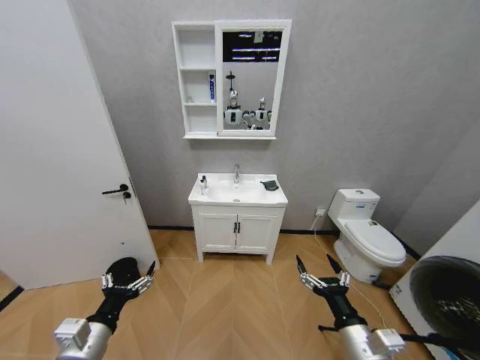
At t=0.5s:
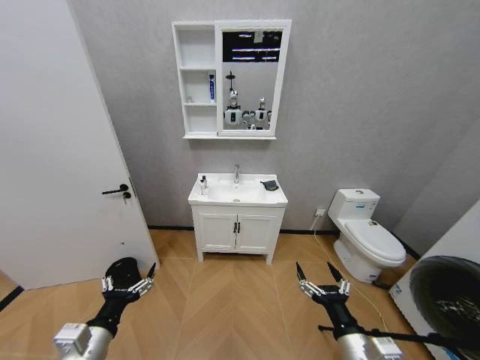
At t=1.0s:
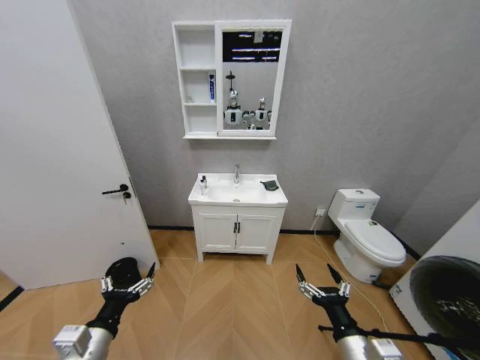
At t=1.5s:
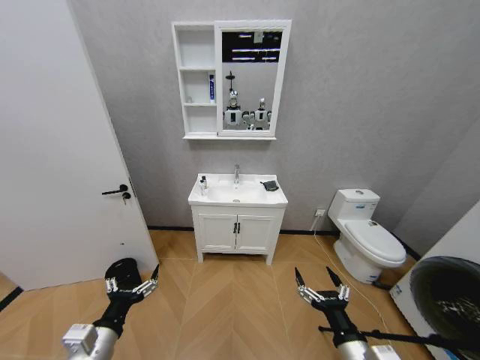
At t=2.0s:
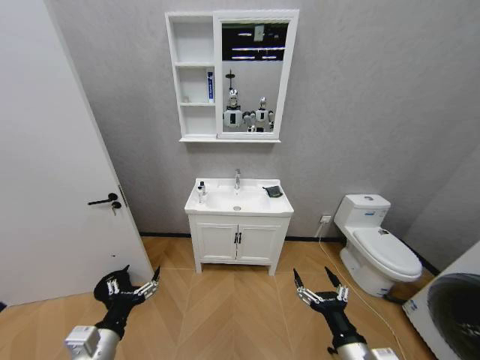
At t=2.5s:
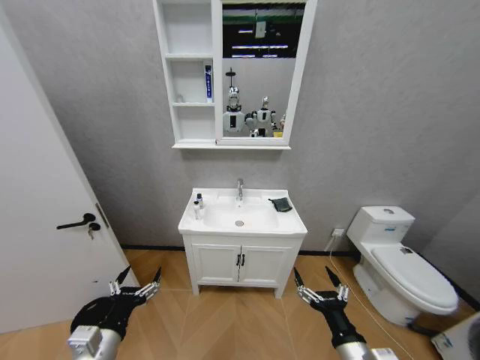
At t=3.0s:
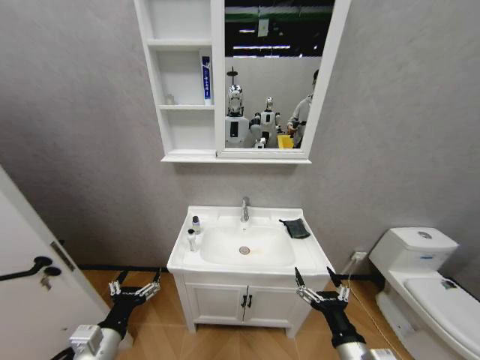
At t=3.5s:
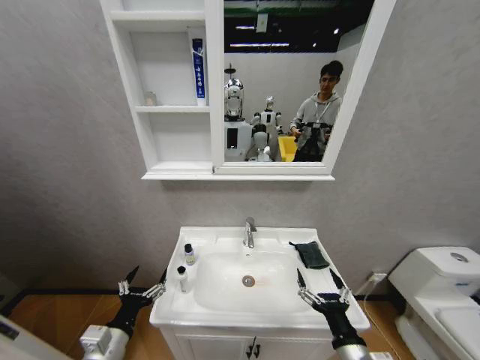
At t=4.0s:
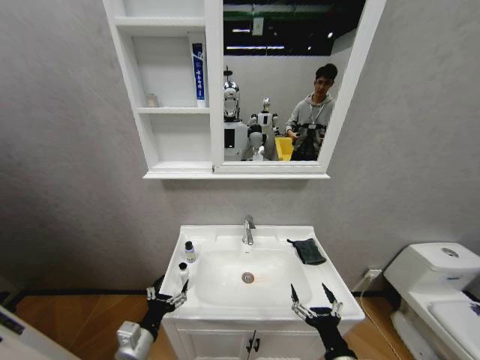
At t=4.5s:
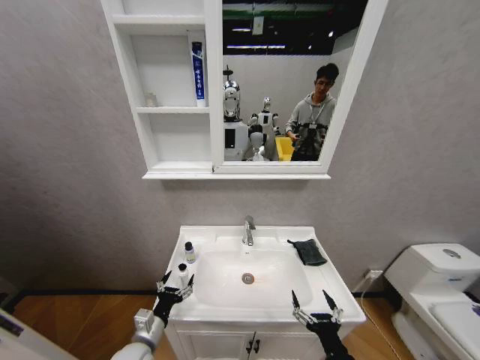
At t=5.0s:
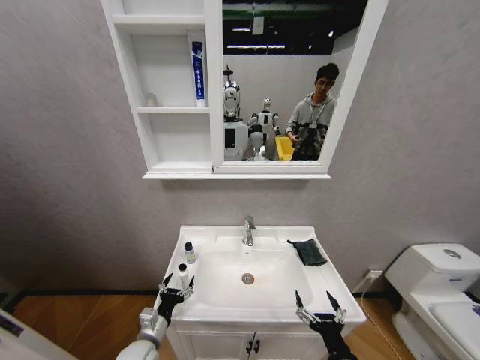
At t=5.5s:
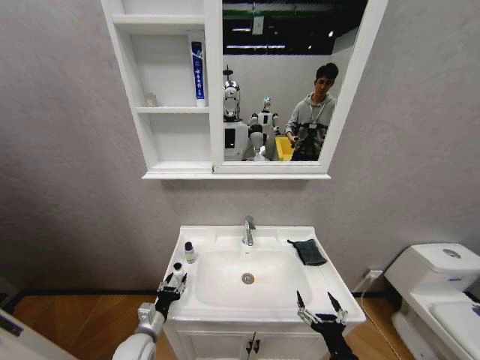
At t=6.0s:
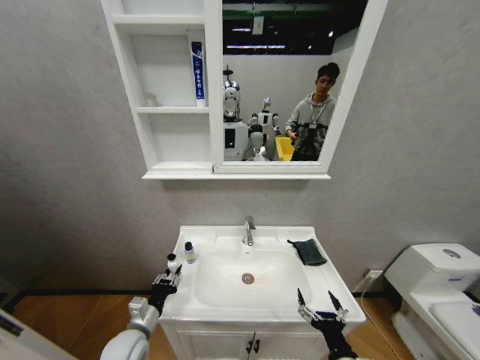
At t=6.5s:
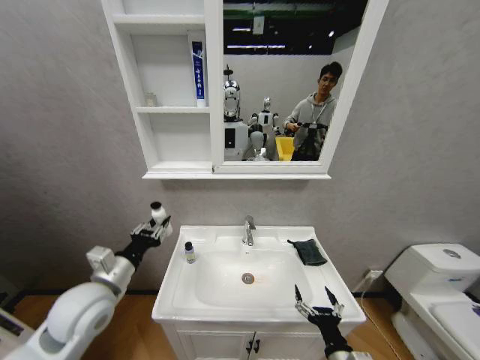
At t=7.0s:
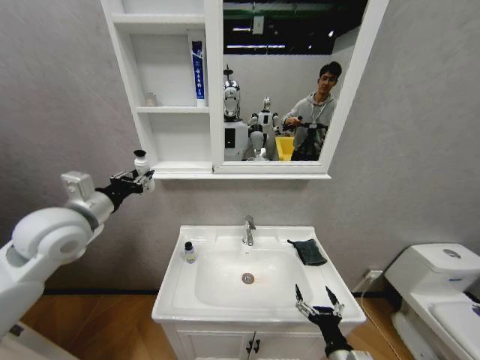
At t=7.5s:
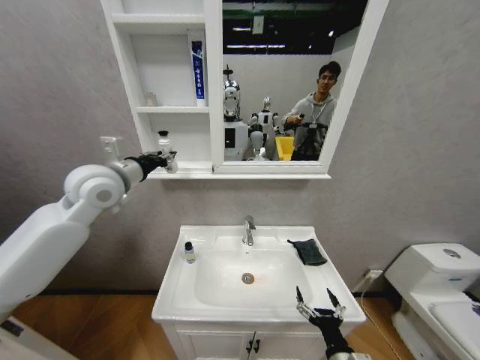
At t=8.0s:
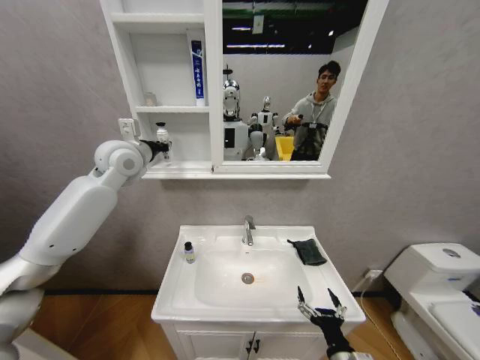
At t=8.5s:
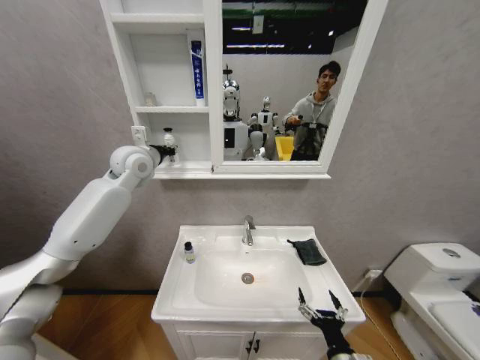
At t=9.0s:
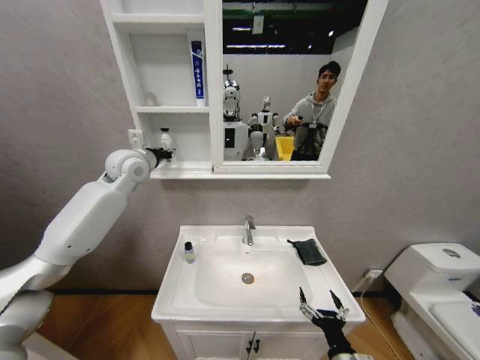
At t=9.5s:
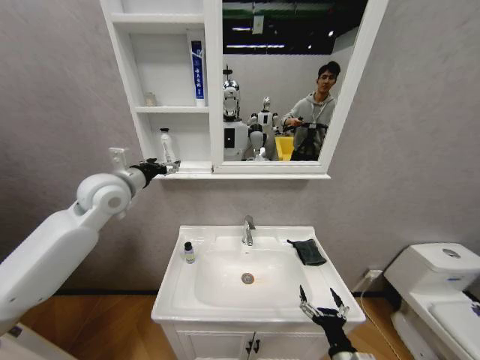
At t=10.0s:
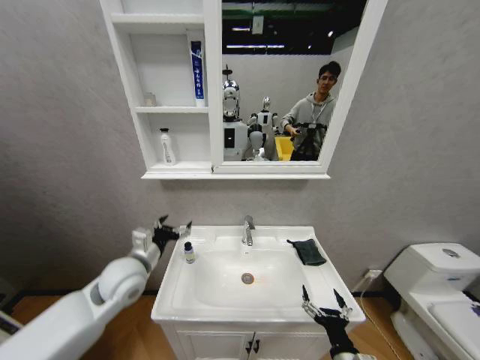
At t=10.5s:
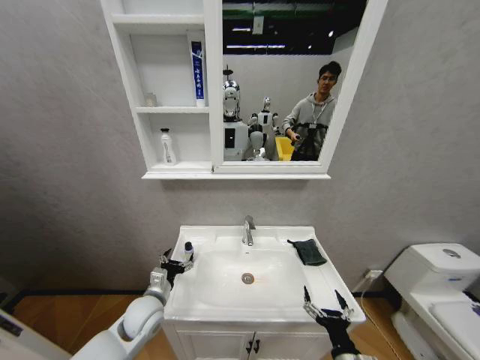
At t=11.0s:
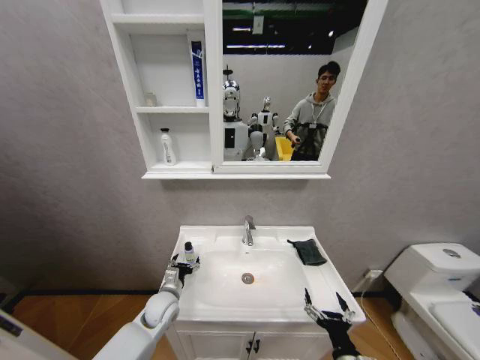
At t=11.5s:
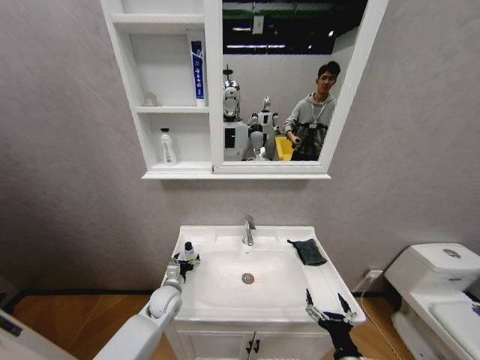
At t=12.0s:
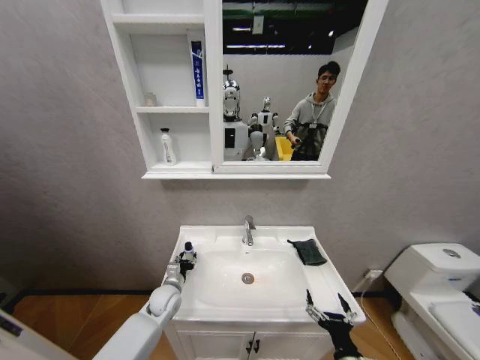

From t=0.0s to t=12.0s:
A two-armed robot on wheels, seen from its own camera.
Task of the whole recording: Move facial cleanser and shampoo from washbasin to cabinet, then wipe washbasin with towel.
From t=2.0s to t=4.0s: The left gripper is displaced downward by about 5 cm.
From t=4.0s to t=6.0s: The left gripper goes approximately 5 cm forward, and closes up.
From t=6.0s to t=8.0s: The left gripper is displaced upward and forward by roughly 50 cm.
From t=8.0s to t=10.0s: The left gripper is displaced downward and backward by approximately 25 cm, and opens up.
From t=10.0s to t=12.0s: The left gripper heads downward, covering about 20 cm, and closes its fingers.

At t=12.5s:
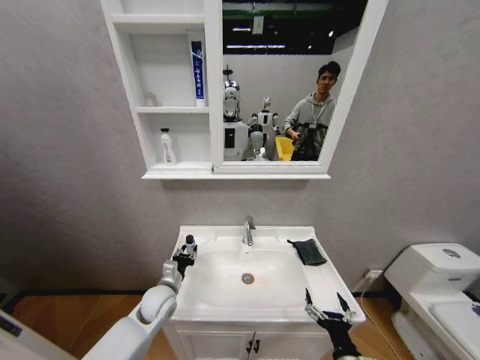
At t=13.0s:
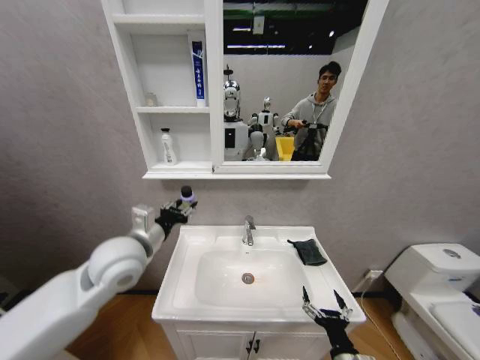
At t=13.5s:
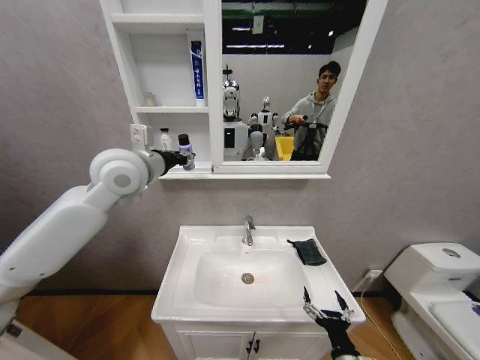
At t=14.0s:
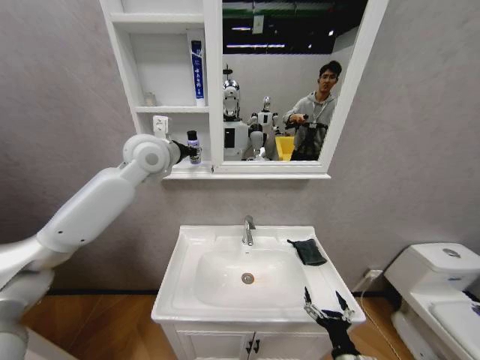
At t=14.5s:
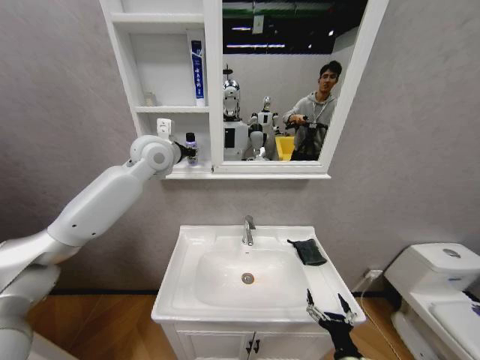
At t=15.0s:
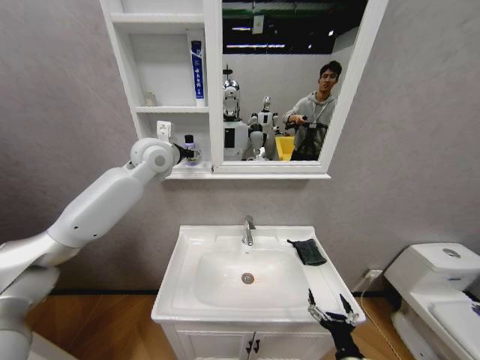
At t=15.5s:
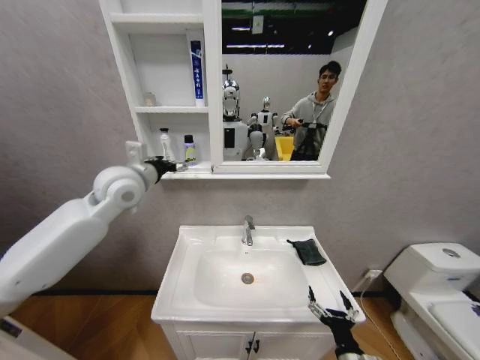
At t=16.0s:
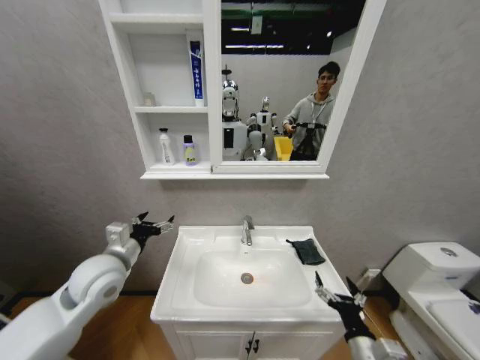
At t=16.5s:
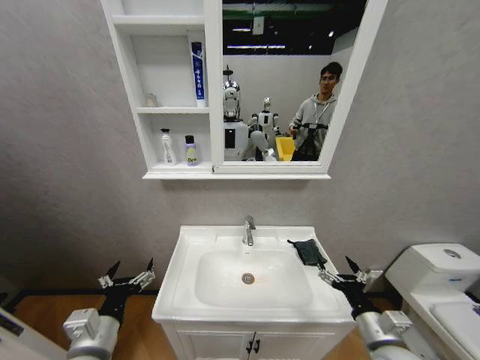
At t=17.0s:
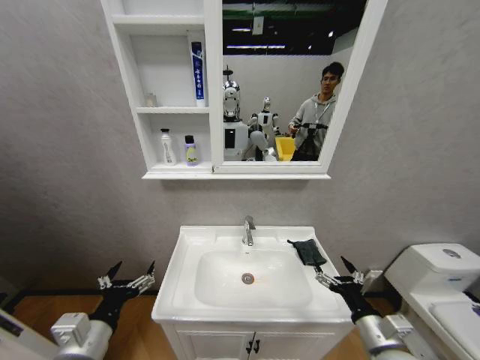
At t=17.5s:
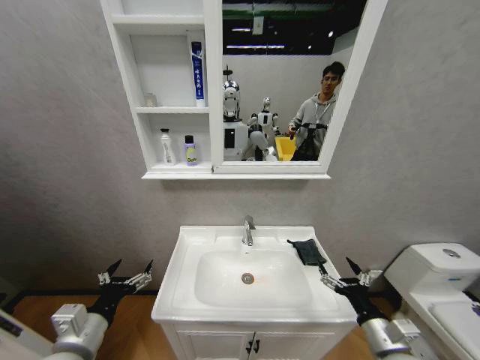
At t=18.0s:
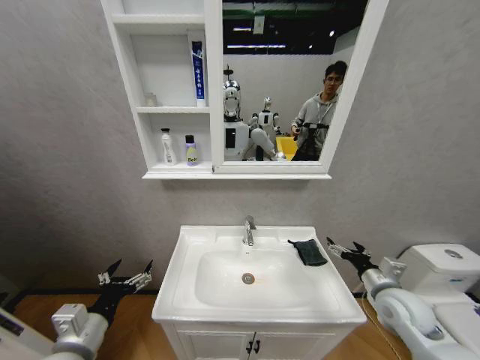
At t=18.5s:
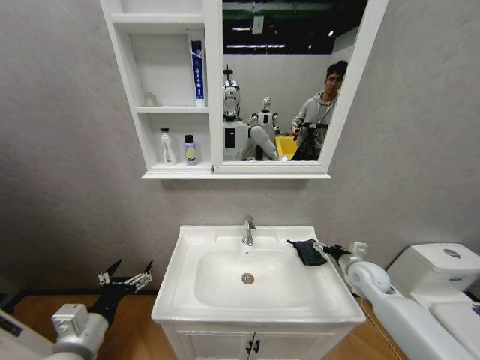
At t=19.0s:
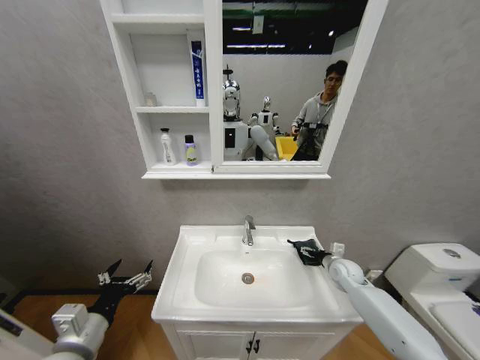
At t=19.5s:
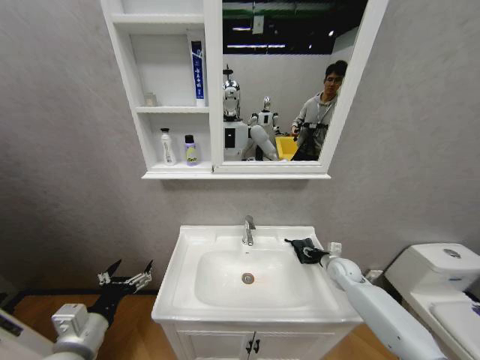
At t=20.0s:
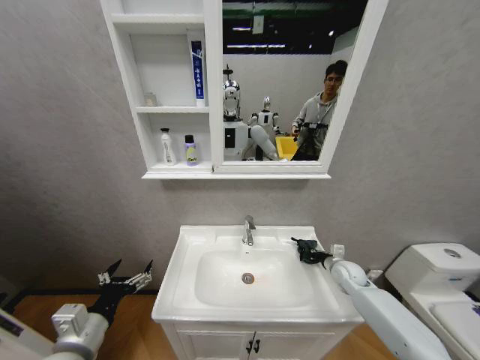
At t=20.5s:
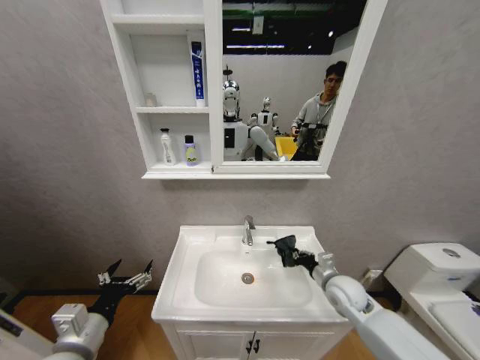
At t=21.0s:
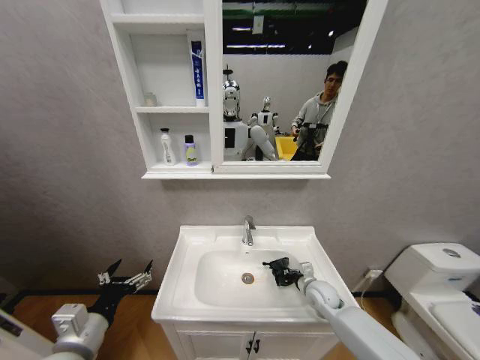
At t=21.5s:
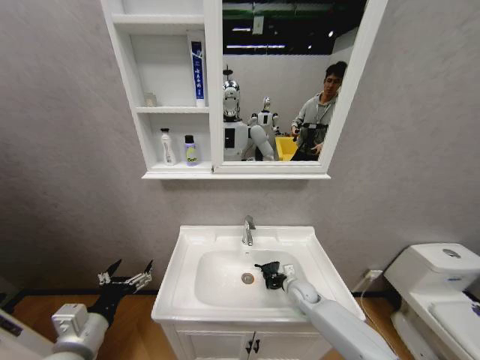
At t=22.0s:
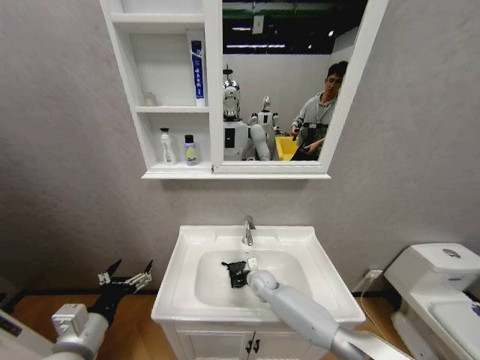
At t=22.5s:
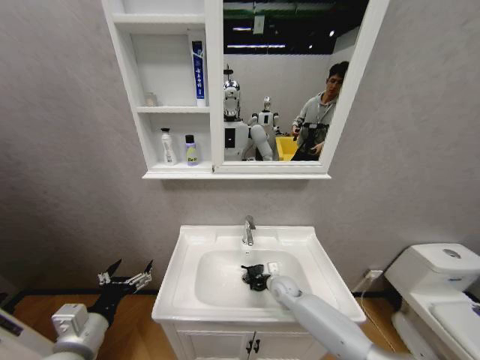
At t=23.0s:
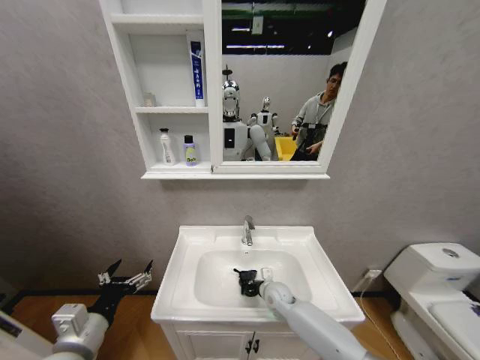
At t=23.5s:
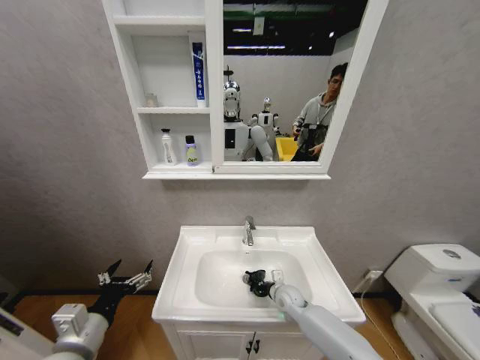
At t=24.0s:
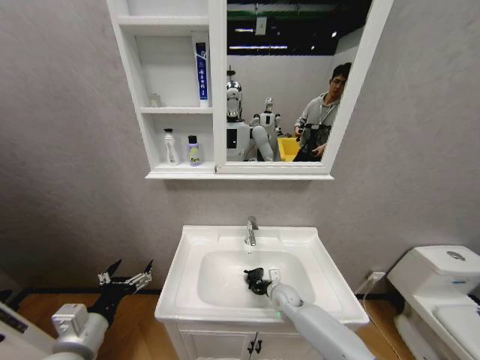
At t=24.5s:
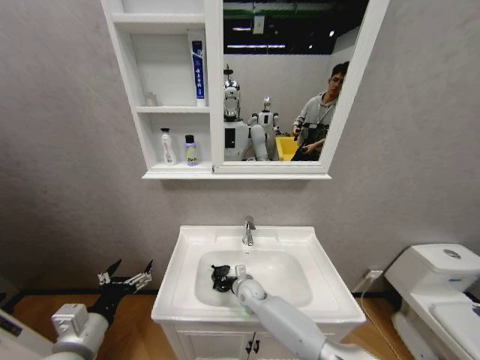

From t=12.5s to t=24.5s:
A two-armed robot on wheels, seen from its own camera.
Task of the whole recording: Move facial cleanser and shampoo from washbasin to cabinet, then wipe washbasin with towel.
From t=12.5s to t=14.5s: The left gripper heads upward and forward, covering about 40 cm.
From t=14.5s to t=16.5s: The right gripper shifts approximately 10 cm upward, forward and to the right, while the left gripper heads backward and downward, covering some 40 cm, and opens up.
From t=16.5s to t=18.5s: The right gripper heads forward, covering some 20 cm.
From t=18.5s to t=20.5s: The right gripper is displaced to the left by roughly 10 cm, and closes up.
From t=20.5s to t=22.5s: The right gripper shifts some 20 cm to the left, downward and forward.
From t=22.5s to t=24.5s: The right gripper travels to the left by approximately 10 cm.

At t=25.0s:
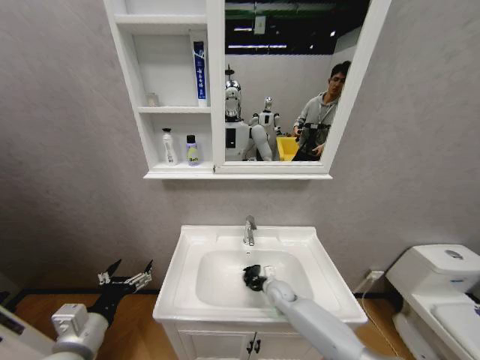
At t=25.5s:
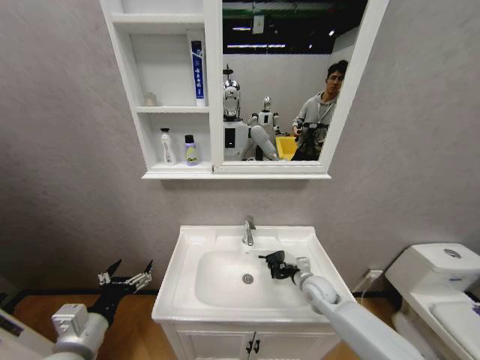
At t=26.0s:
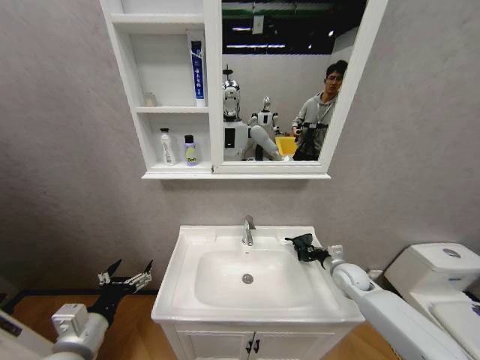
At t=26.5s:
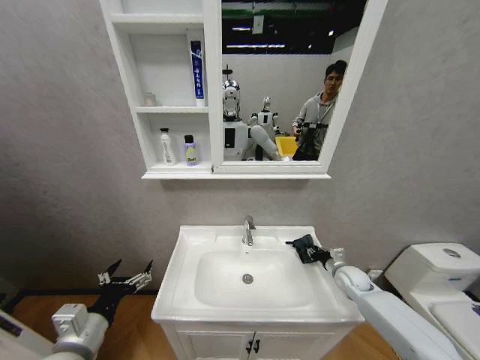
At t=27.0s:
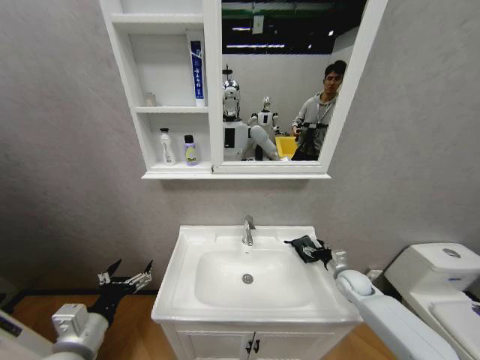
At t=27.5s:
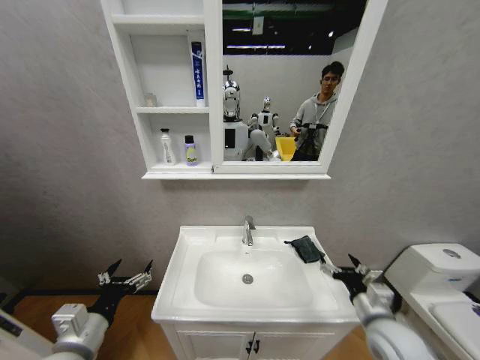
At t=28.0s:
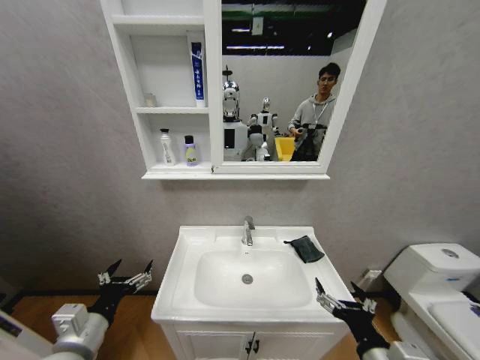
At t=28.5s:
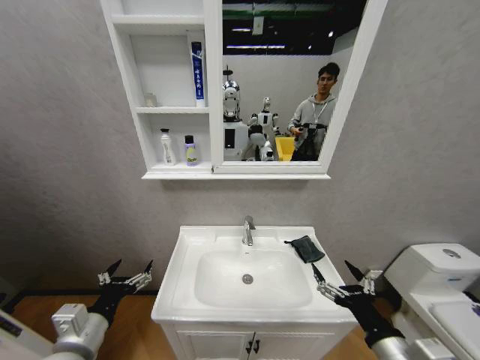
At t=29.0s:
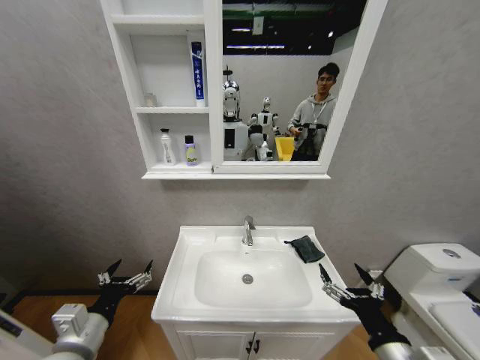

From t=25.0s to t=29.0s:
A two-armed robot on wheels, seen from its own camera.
Task of the whole recording: Move facial cleanser and shampoo from washbasin to cabinet, then wipe washbasin with towel.
From t=25.0s to t=27.0s: The right gripper heads to the right, covering some 25 cm, and opens.
From t=27.0s to t=29.0s: The right gripper is displaced backward, upward and to the left by roughly 35 cm.
